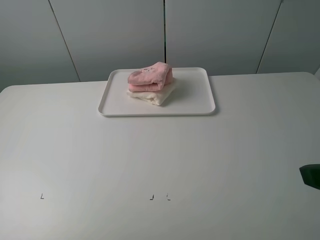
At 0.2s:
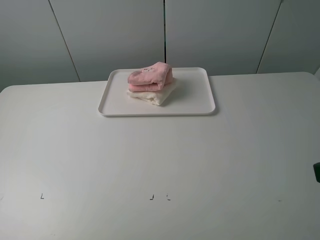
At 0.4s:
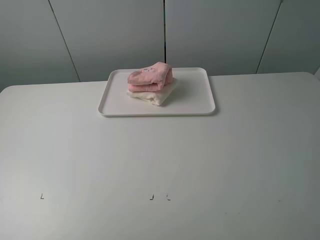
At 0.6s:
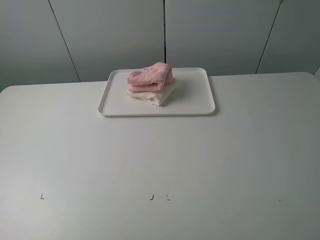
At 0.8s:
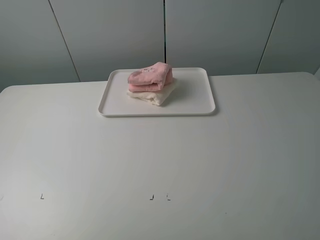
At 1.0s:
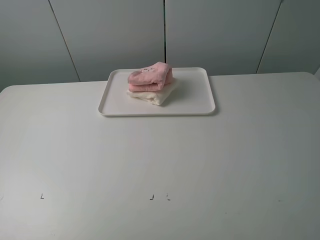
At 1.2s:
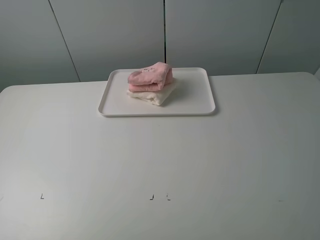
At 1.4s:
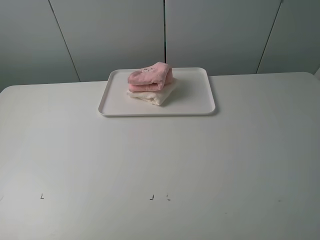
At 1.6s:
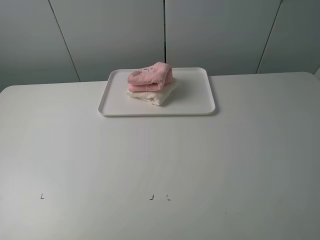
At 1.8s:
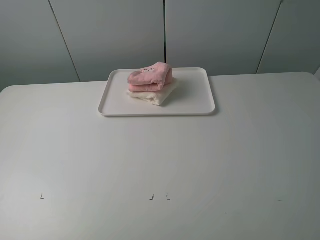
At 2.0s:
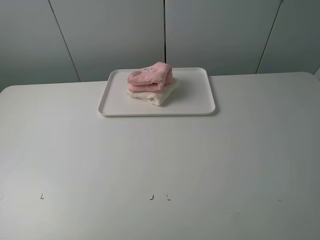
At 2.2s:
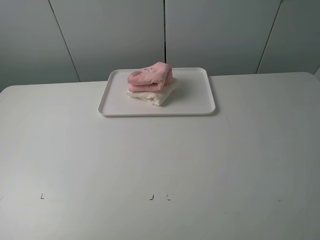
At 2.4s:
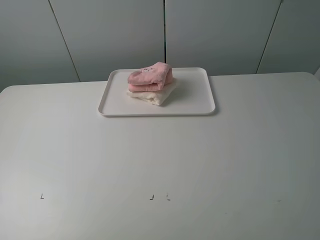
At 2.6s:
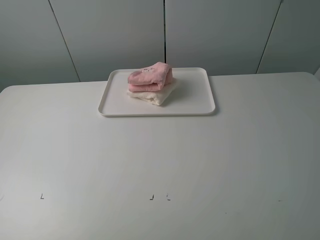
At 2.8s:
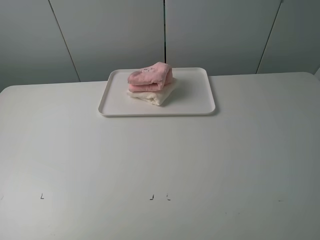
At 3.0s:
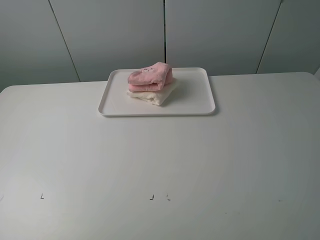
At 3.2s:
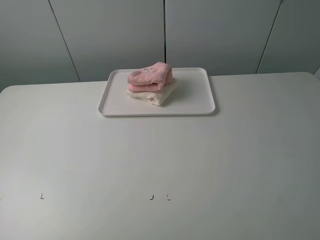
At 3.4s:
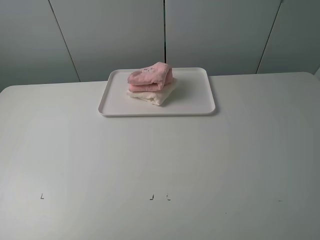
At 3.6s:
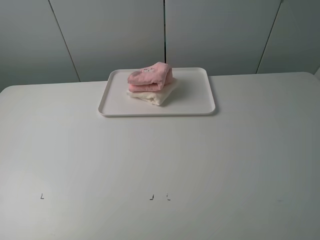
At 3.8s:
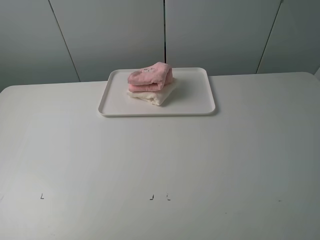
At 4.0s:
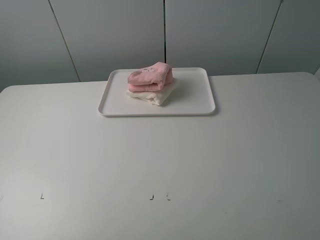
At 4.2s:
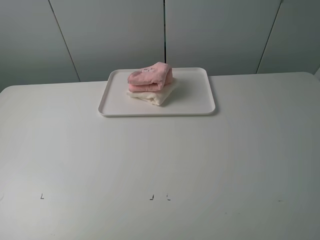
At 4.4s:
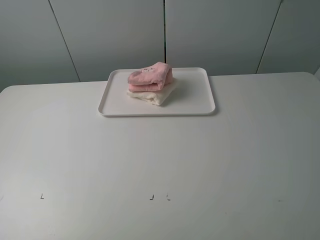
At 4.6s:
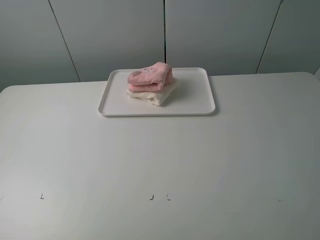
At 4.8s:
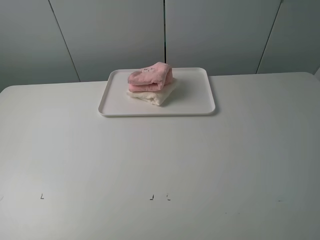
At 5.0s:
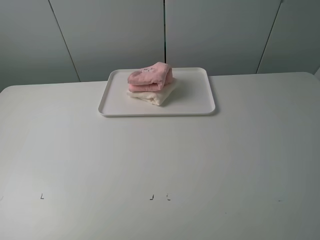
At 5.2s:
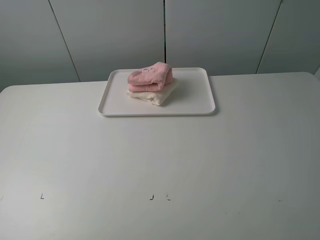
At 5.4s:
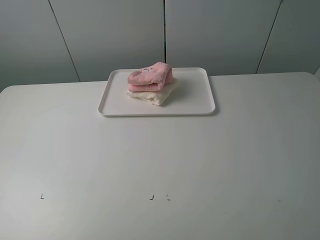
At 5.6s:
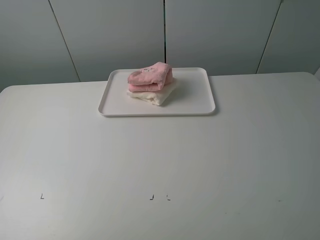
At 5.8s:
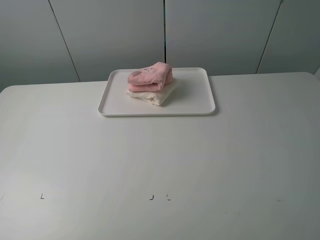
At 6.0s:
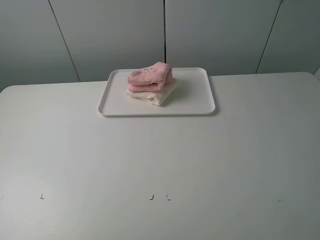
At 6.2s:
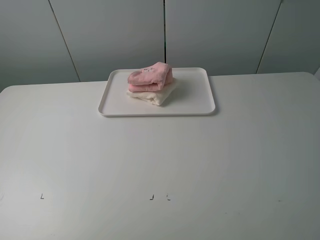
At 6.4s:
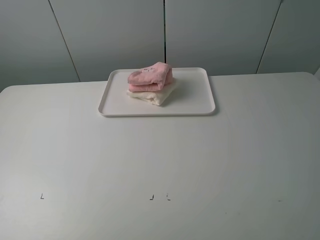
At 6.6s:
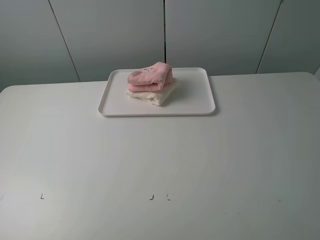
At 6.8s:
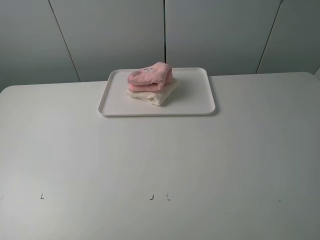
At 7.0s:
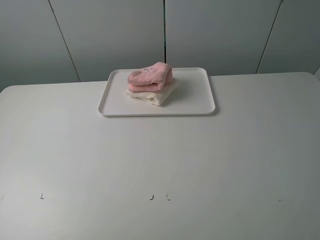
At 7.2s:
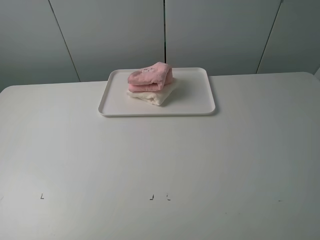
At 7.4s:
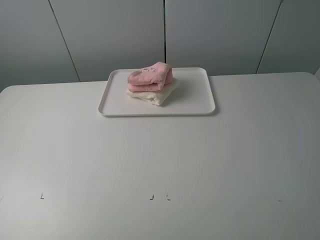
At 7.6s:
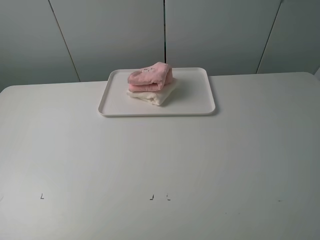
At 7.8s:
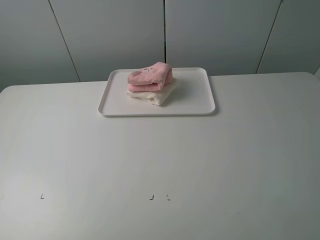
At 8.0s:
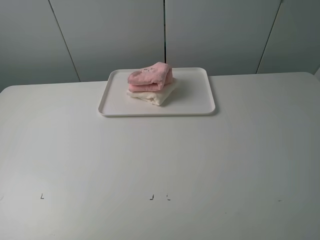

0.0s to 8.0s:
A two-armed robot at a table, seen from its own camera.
Task of the whole recording: fold one of the towels by two grippers and place it on the tray,then fold another towel by two grippers and place it on the folded towel.
4.8s to 8.0s: Both grippers stay put.
